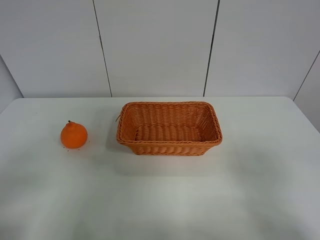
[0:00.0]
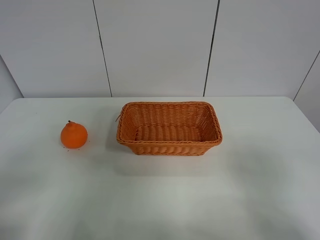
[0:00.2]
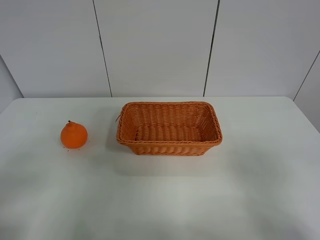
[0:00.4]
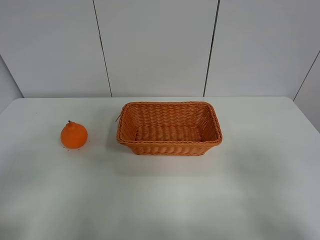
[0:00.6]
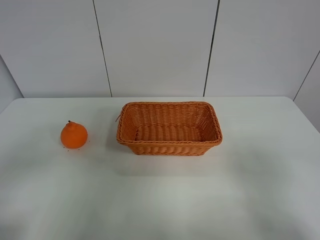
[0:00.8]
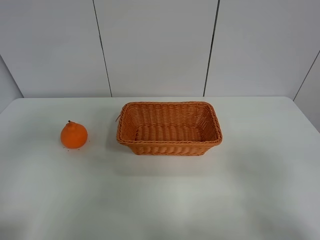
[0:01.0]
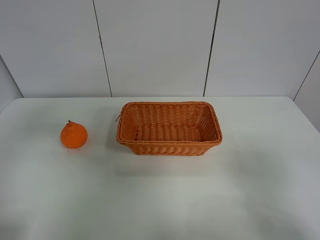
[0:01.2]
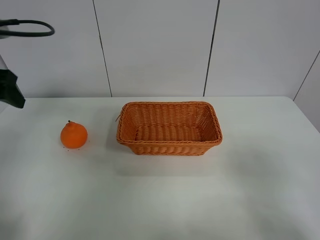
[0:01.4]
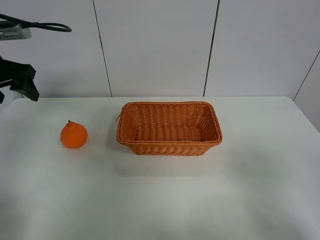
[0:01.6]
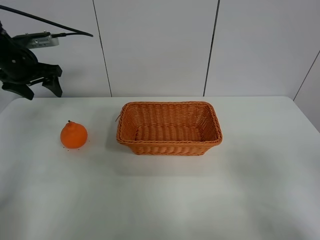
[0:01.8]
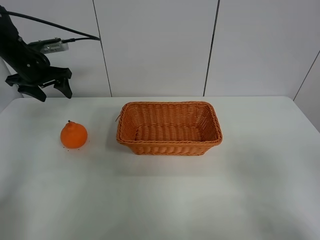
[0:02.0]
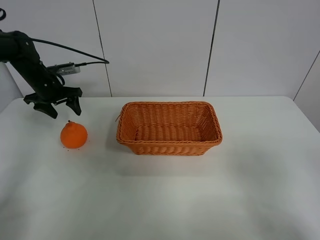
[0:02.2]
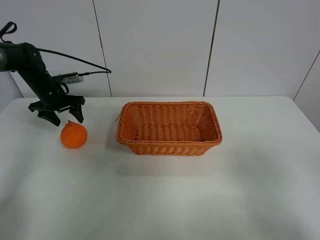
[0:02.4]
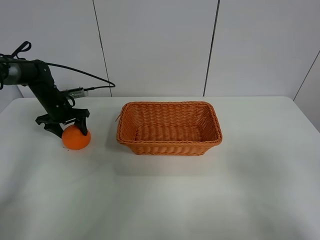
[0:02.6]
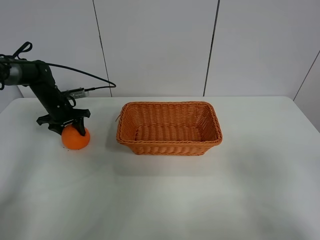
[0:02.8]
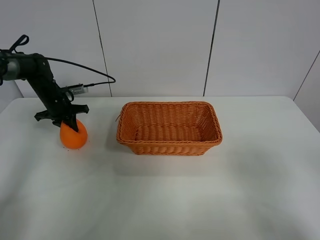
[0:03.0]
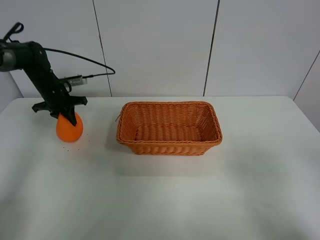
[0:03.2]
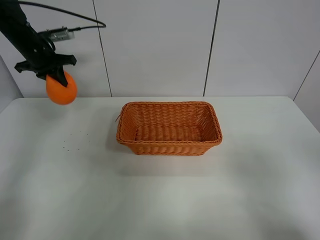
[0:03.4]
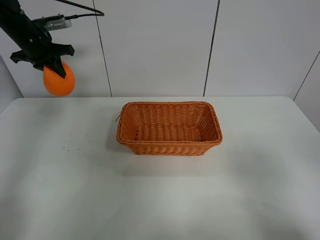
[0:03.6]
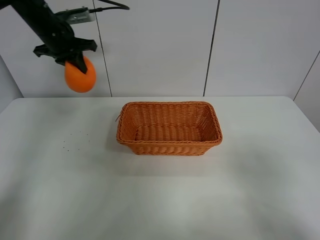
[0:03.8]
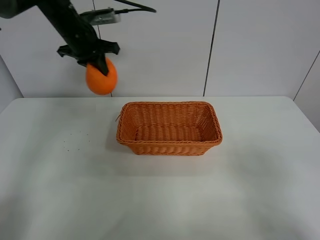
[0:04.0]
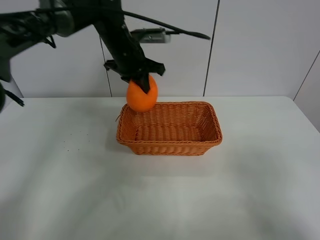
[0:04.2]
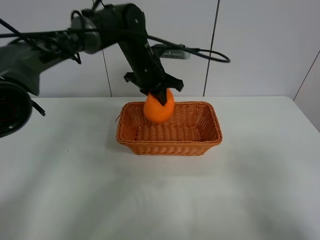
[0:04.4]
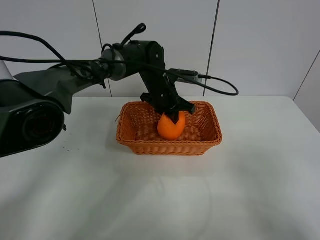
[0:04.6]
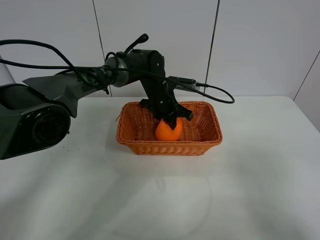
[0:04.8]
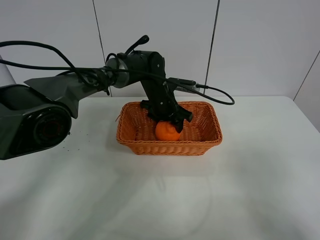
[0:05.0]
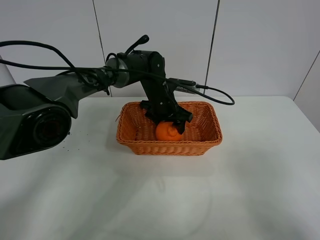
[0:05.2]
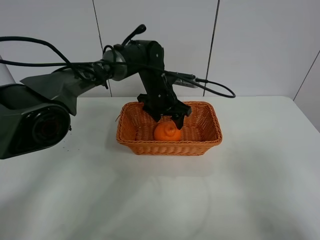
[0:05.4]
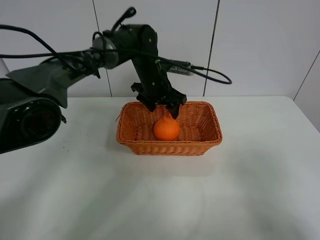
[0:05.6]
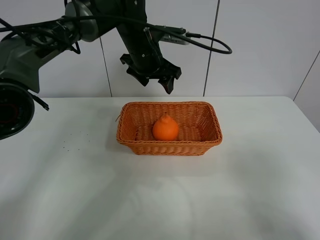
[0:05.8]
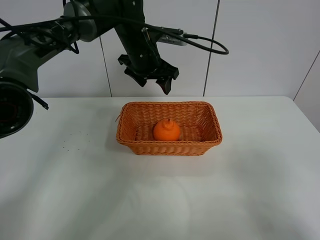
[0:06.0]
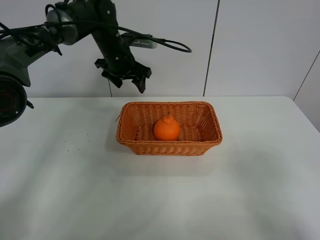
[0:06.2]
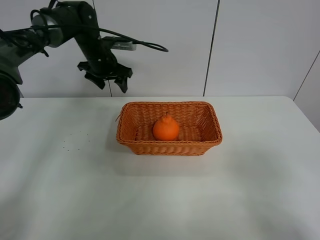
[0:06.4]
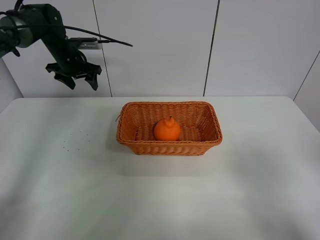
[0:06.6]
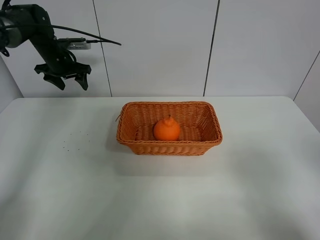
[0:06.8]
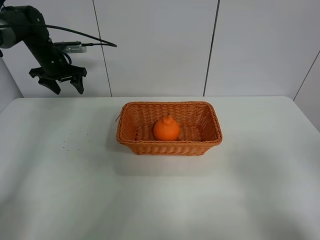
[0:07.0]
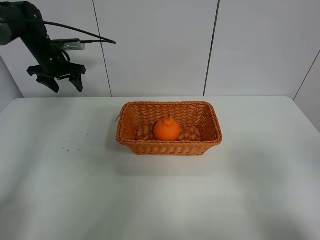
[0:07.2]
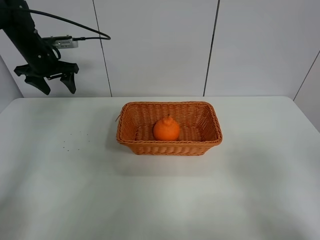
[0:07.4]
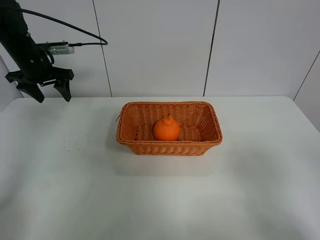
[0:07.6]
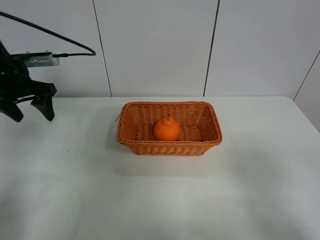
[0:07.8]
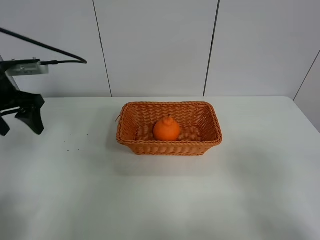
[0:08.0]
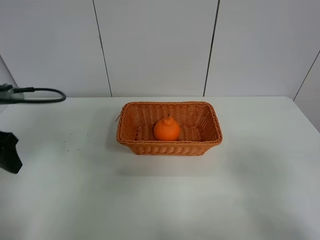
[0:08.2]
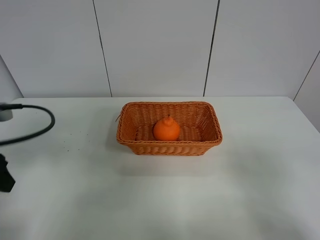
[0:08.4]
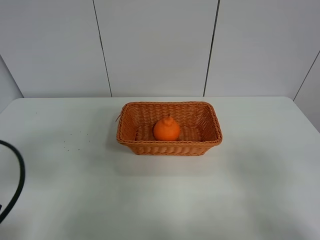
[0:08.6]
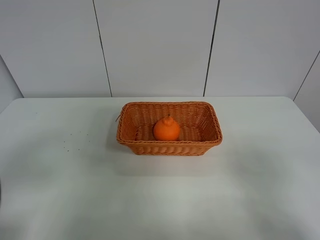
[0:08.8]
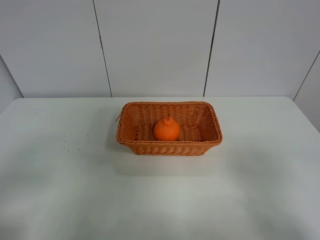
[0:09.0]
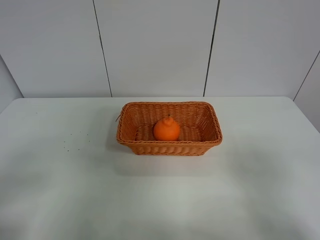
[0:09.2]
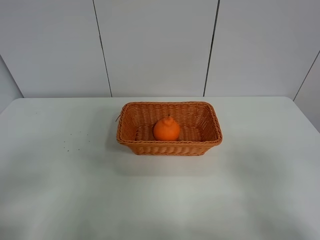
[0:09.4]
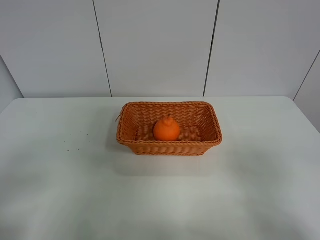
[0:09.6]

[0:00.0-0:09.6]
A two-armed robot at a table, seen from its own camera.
Task of the whole recording: left gripper grabs oranges and puts them in the basket.
Step, 0:00.0 to 0:02.8: Grasp the orange with left gripper.
Step, 0:03.0 to 0:06.2: Place the orange in the basket with left gripper.
0:00.0 to 0:01.6: The left gripper goes roughly 35 cm forward.
0:01.6 to 0:03.2: The left gripper moves downward and forward, some 20 cm, and closes.
0:03.2 to 0:04.8: The left gripper moves to the right, about 30 cm.
0:04.8 to 0:06.4: The left gripper travels to the left and upward by some 20 cm, and opens its fingers.
0:06.4 to 0:08.0: The left gripper goes roughly 25 cm backward and to the left.
0:08.0 to 0:09.6: The left gripper goes about 30 cm backward.
